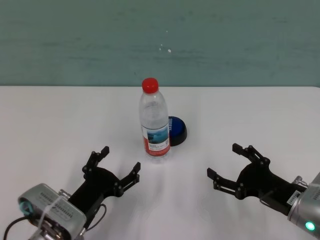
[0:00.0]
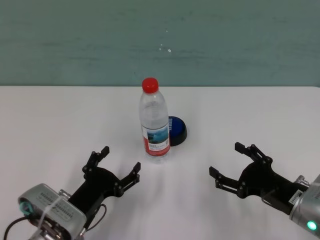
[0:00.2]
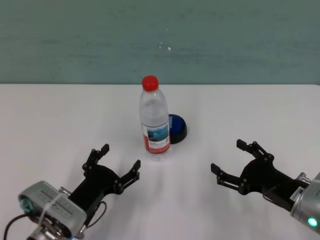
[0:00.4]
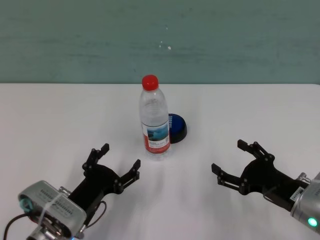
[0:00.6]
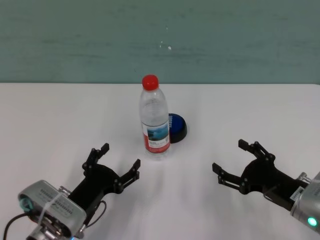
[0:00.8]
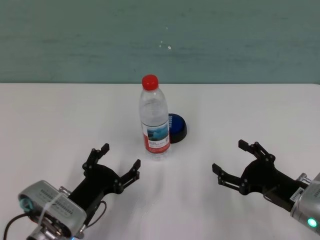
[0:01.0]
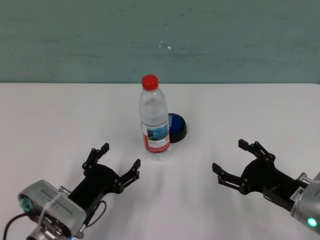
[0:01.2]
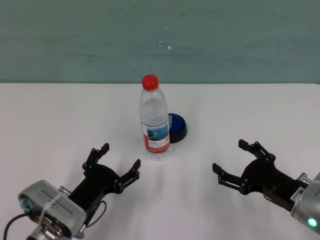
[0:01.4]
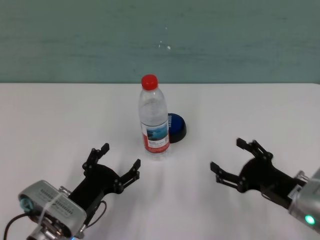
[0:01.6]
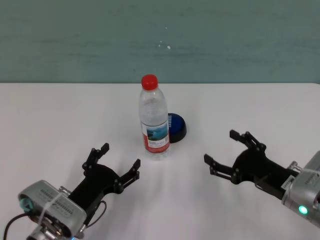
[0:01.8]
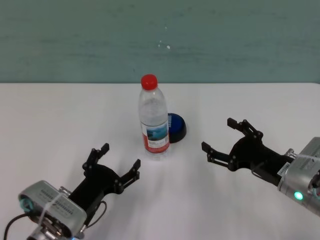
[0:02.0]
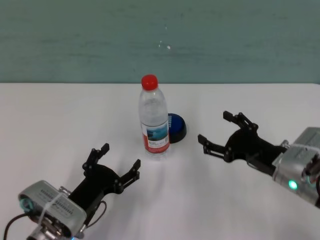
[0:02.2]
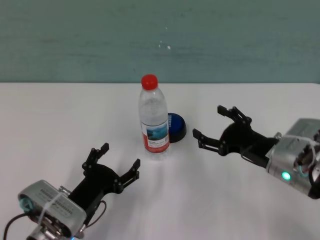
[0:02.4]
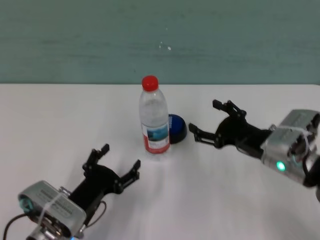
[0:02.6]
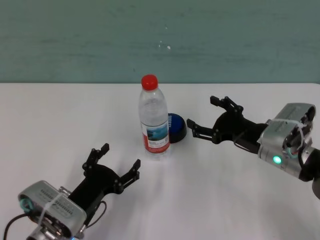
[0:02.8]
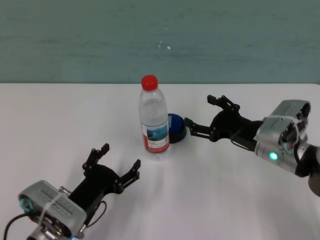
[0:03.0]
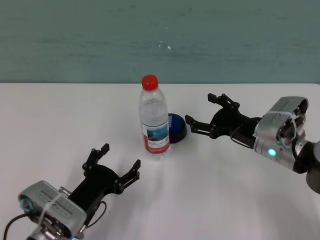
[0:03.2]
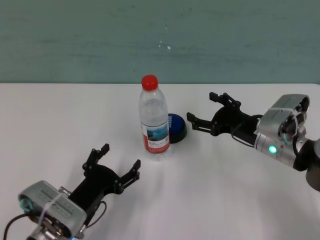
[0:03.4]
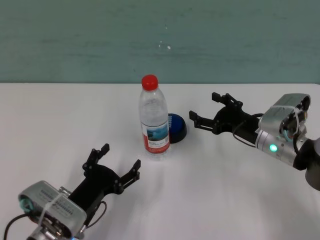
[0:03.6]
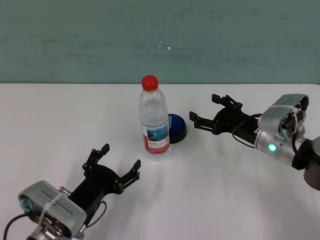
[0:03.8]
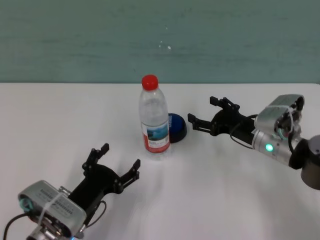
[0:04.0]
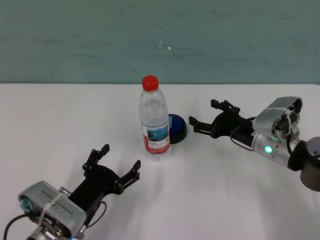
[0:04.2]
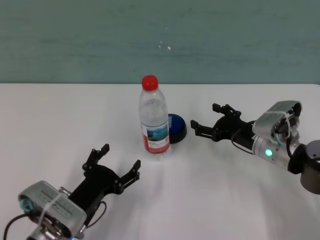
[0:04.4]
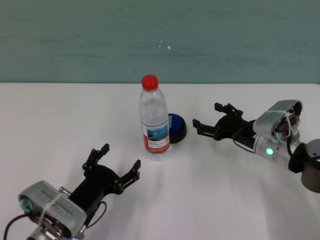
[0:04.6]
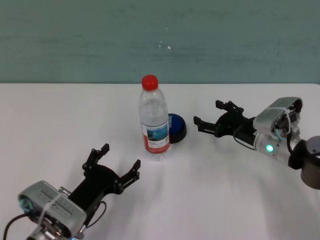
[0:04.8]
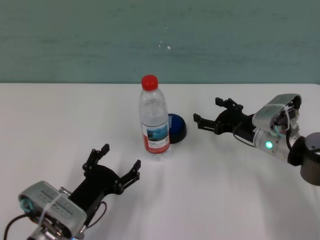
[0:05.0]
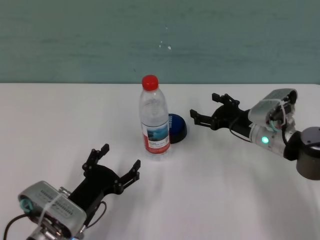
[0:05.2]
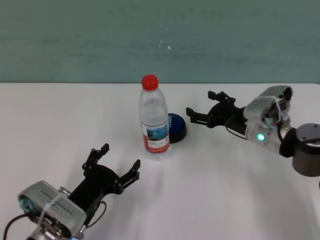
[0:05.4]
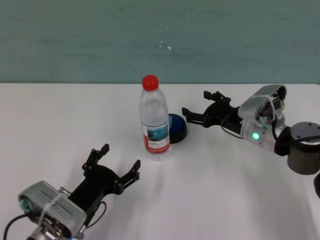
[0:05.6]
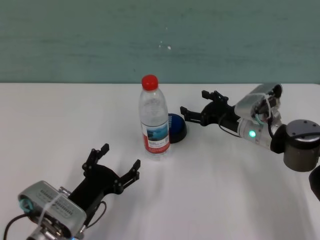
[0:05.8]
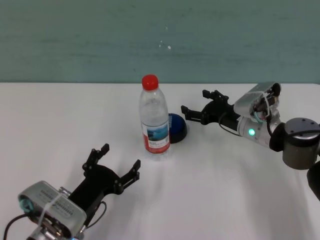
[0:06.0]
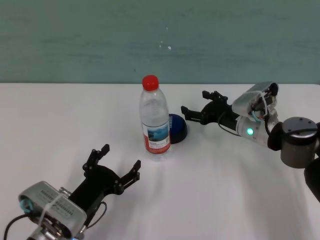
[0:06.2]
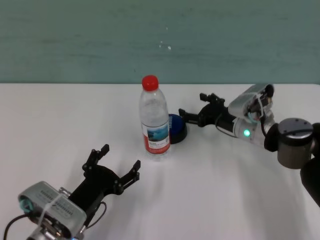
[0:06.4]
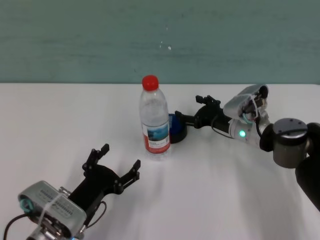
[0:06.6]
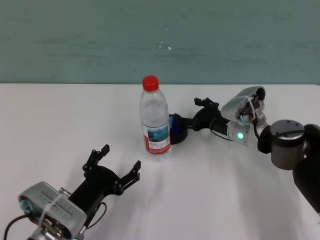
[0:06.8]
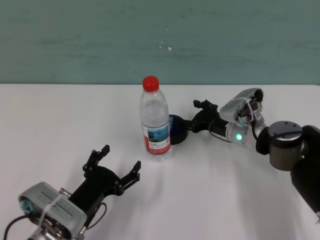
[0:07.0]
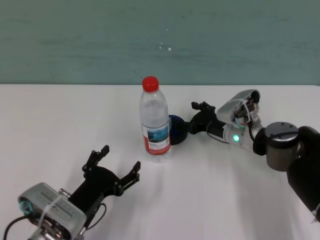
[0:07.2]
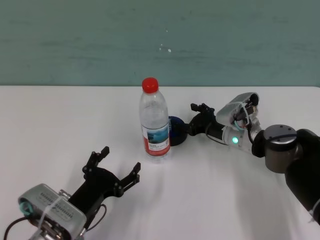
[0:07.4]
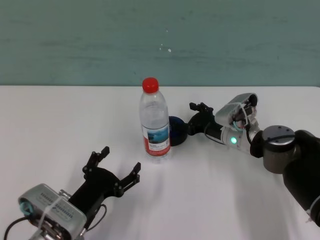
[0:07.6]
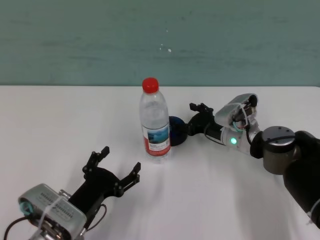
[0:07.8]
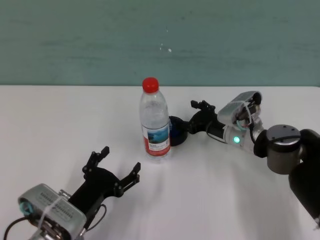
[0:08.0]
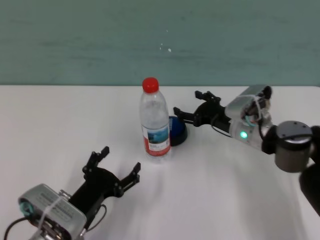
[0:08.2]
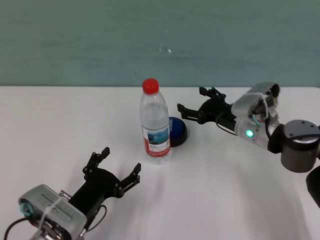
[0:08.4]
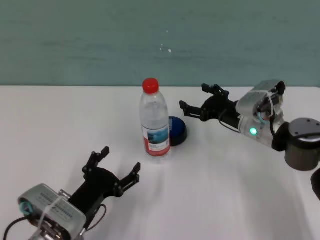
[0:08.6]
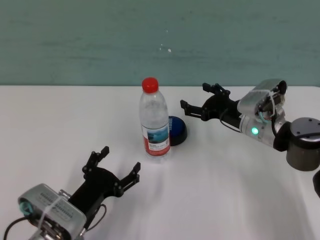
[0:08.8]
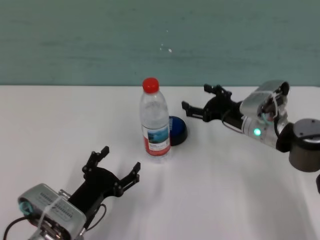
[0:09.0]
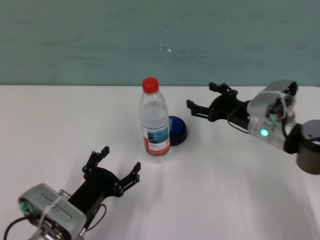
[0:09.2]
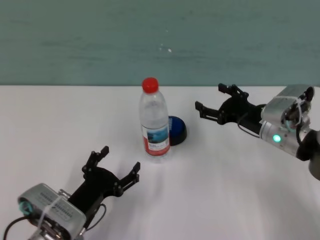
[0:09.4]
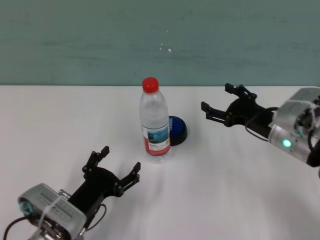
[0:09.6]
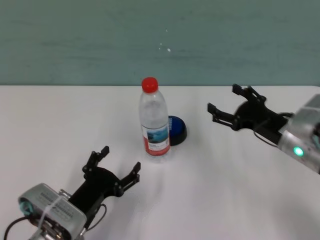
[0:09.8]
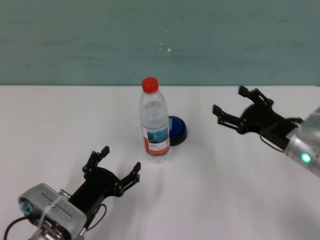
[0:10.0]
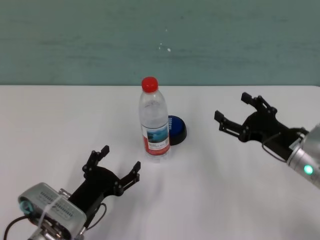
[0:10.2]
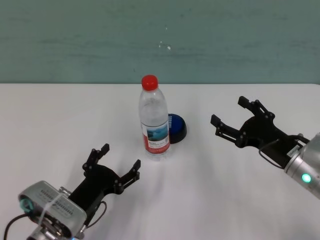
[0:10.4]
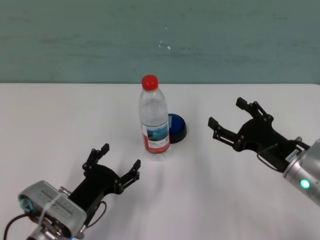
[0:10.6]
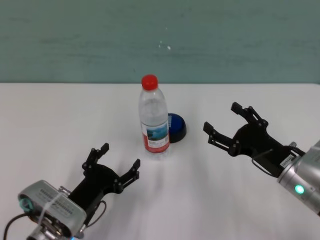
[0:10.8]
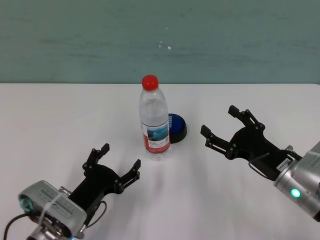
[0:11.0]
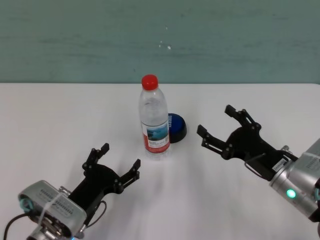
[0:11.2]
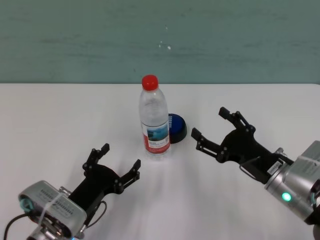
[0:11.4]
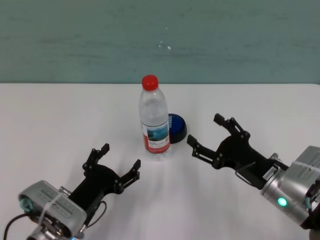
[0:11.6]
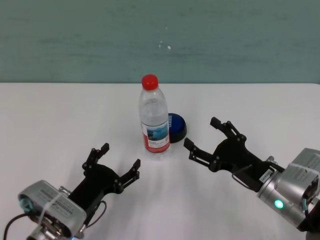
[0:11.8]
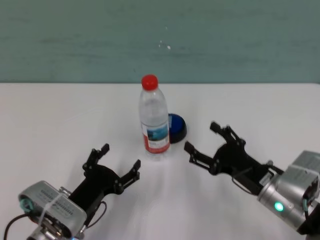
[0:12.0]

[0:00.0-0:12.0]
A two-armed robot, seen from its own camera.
Task of the whole recording: after avoiding the water bottle on the table, press the button.
Step, 0:00.0 to 0:08.0: Press the button blocked by the bottle with right gripper.

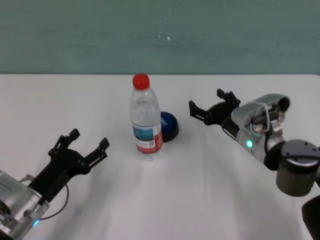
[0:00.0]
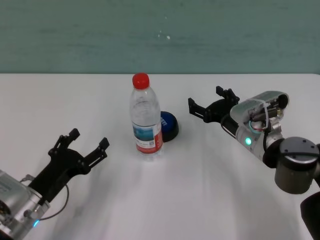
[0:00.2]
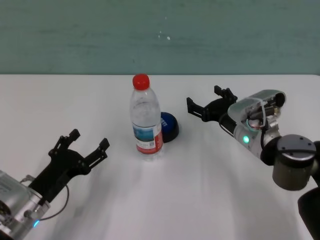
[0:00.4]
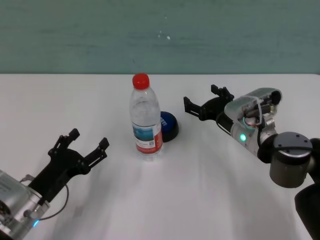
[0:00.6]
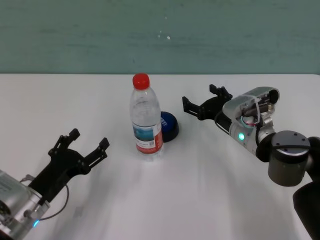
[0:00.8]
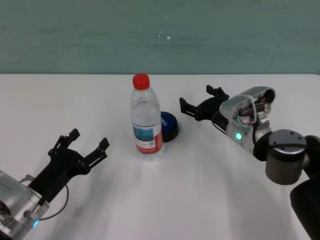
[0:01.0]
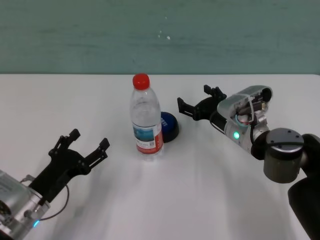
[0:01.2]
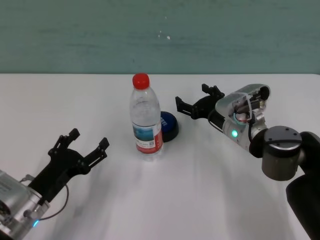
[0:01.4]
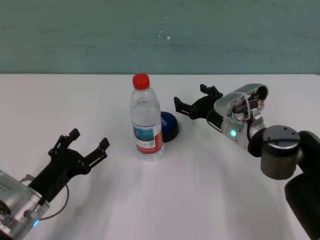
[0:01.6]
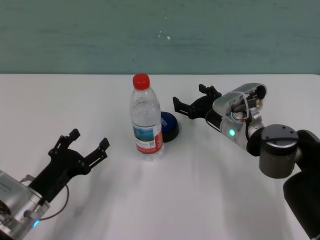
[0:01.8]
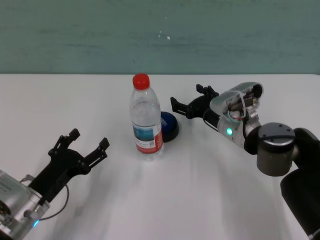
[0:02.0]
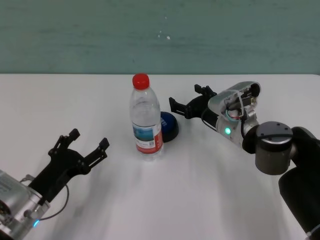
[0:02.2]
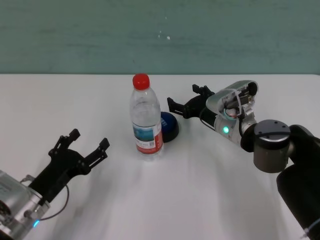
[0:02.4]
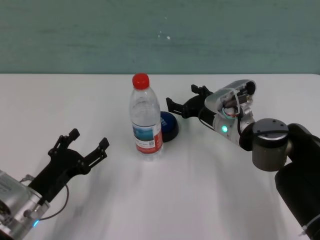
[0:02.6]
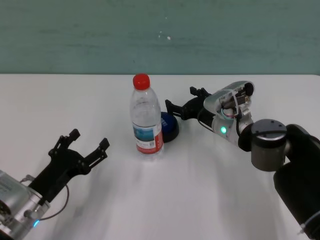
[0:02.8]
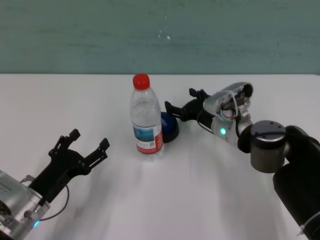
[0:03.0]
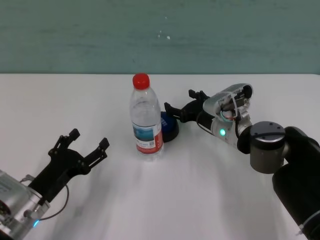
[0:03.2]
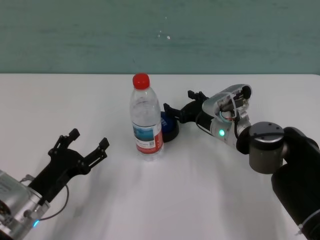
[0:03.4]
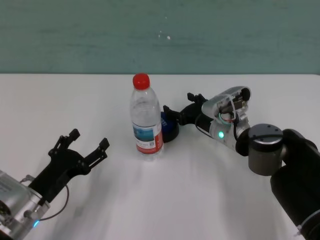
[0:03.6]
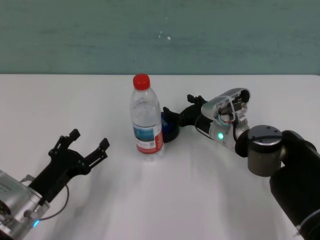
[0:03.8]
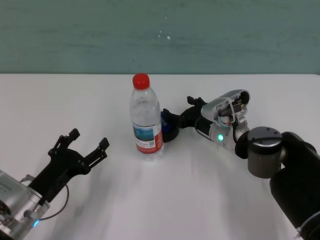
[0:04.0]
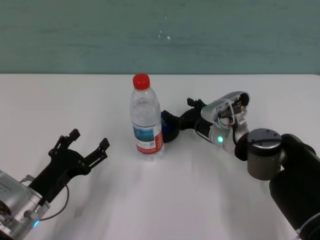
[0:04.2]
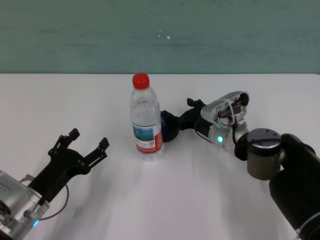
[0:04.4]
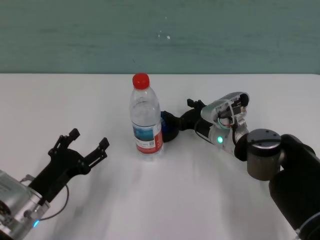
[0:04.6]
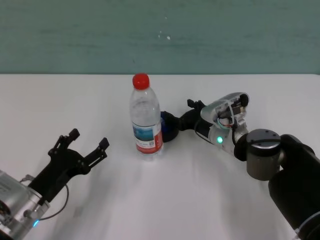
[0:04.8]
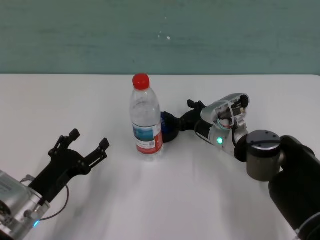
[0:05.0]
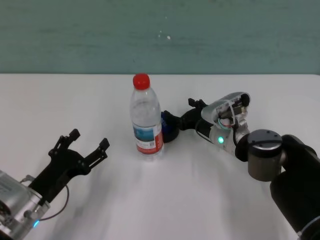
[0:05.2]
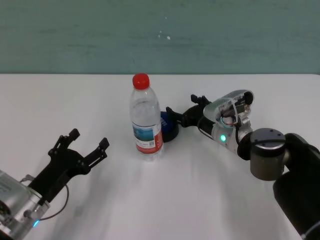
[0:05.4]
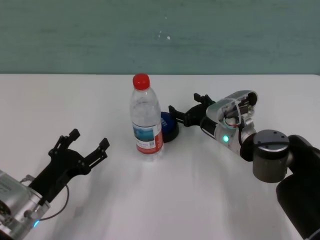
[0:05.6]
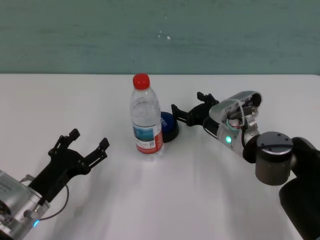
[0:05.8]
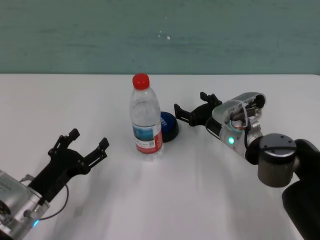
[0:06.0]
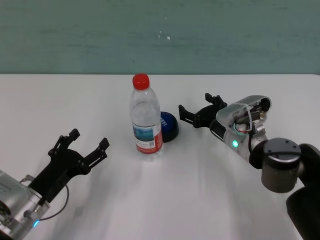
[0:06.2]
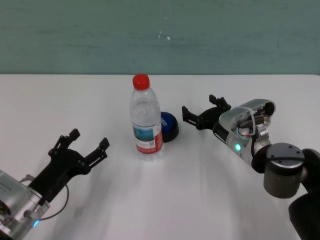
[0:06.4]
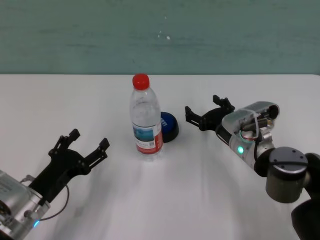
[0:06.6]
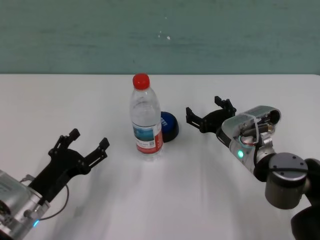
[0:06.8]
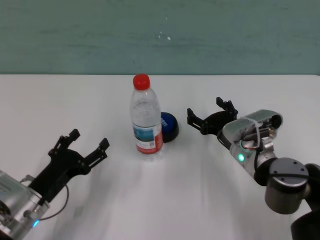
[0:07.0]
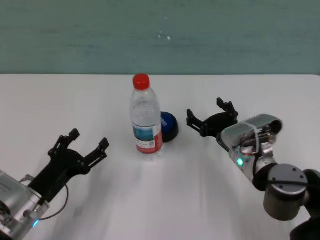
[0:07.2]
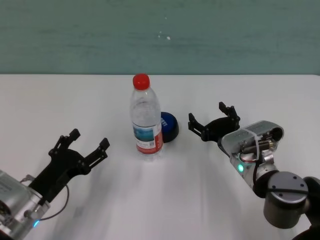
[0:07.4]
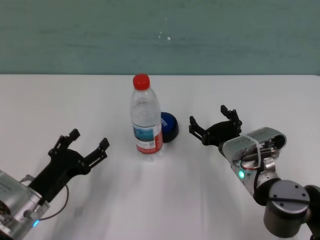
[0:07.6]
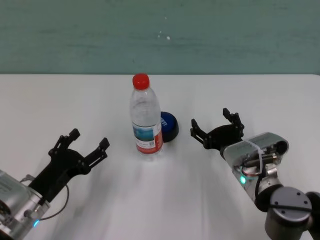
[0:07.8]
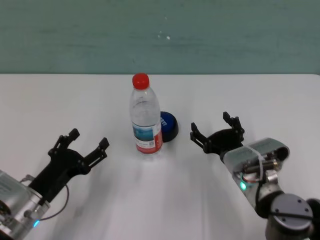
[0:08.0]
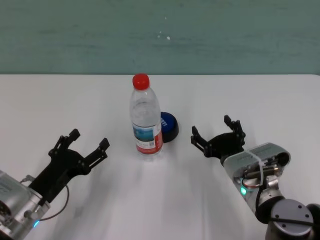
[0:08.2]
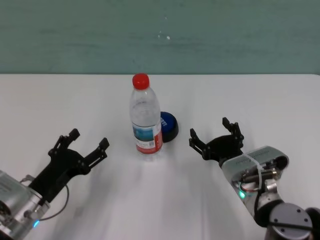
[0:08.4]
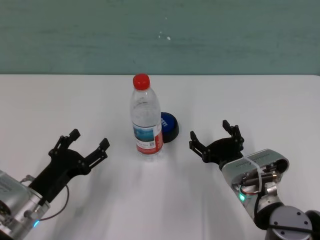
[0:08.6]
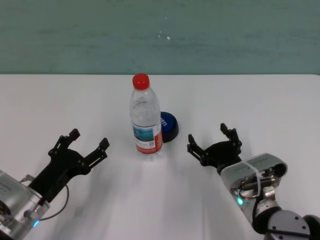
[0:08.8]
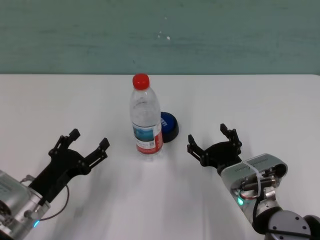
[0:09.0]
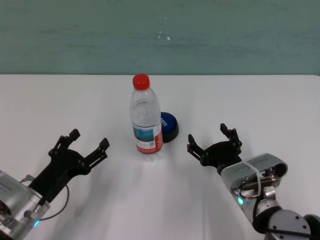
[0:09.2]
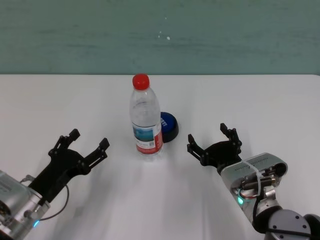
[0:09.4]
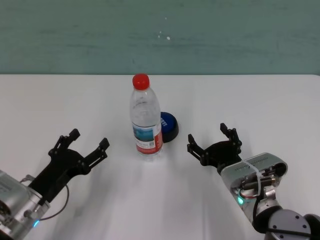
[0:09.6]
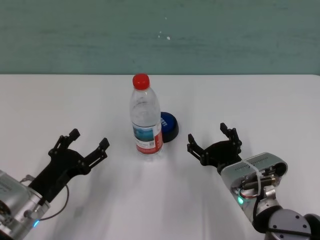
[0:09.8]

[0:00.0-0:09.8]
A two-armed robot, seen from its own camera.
Task of the whole recording: after avoiding the water bottle on the table, press the button.
Step, 0:00.0 to 0:05.2: Press the button blocked by the bottle with right gripper.
